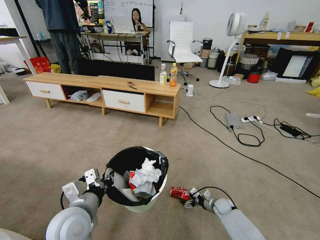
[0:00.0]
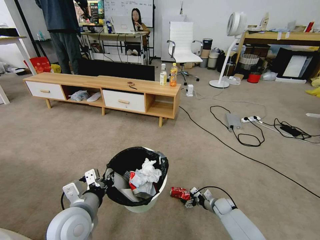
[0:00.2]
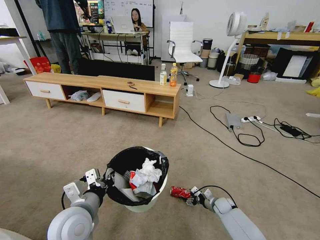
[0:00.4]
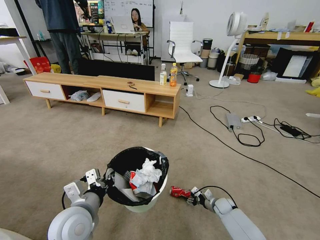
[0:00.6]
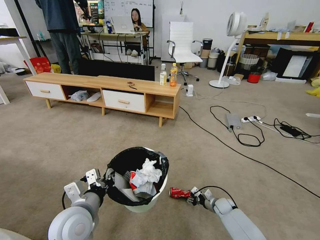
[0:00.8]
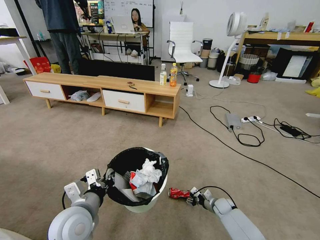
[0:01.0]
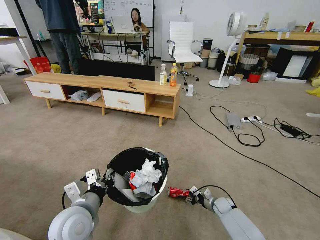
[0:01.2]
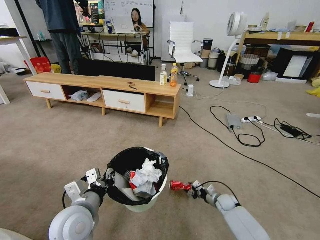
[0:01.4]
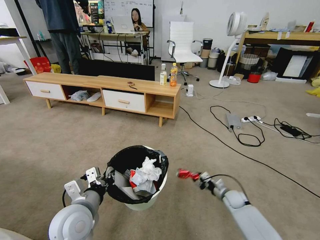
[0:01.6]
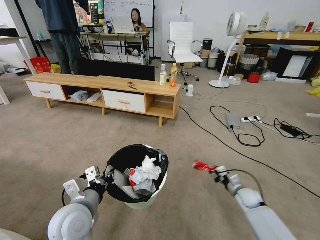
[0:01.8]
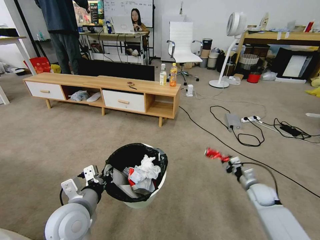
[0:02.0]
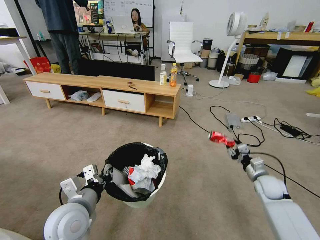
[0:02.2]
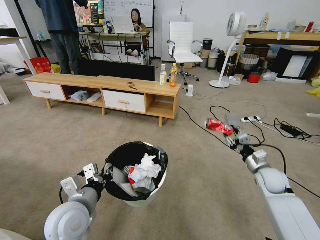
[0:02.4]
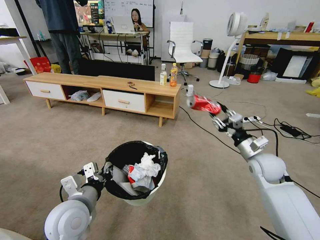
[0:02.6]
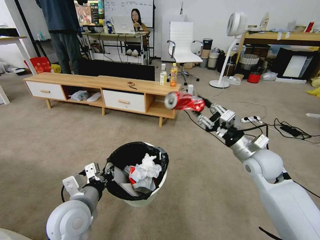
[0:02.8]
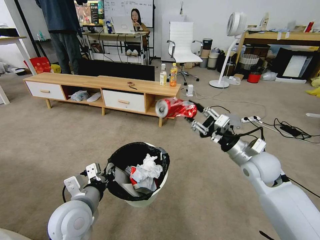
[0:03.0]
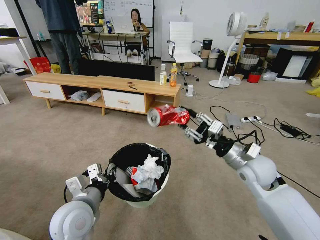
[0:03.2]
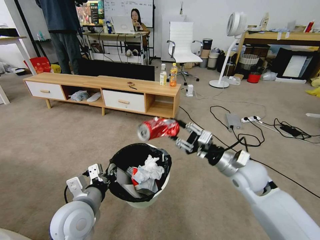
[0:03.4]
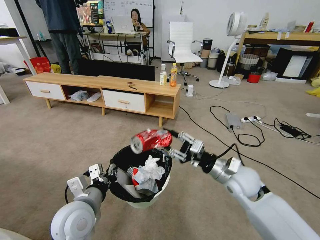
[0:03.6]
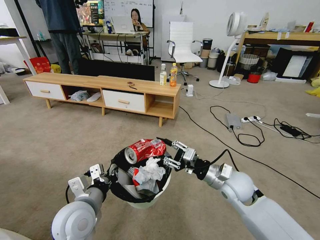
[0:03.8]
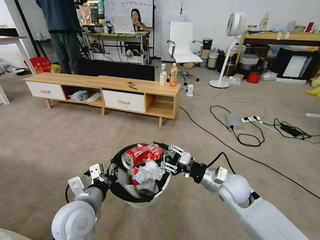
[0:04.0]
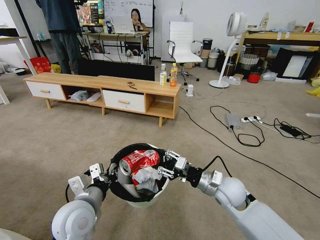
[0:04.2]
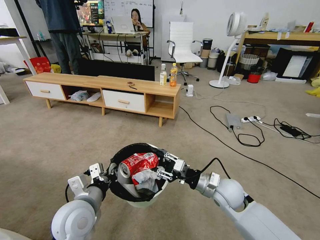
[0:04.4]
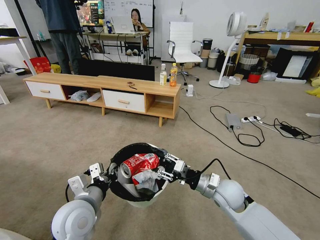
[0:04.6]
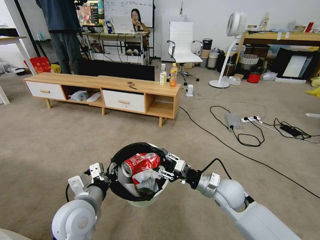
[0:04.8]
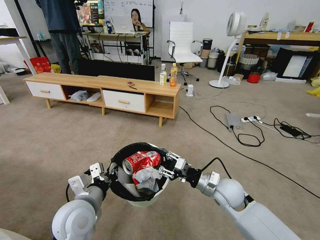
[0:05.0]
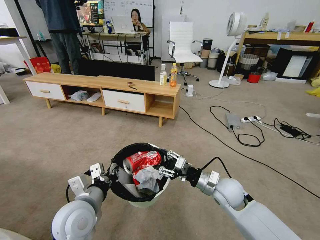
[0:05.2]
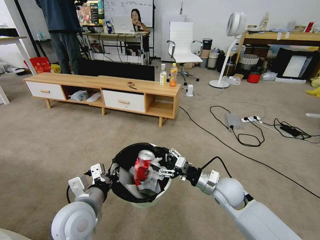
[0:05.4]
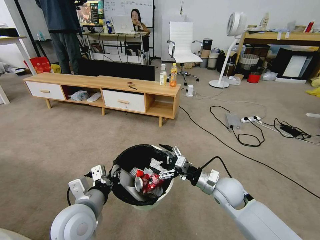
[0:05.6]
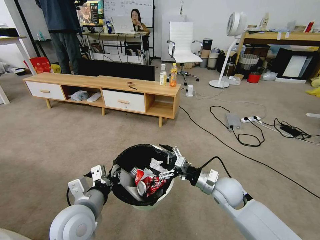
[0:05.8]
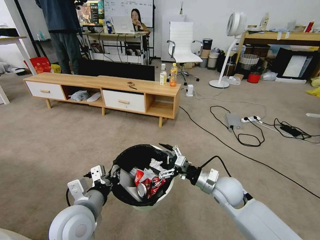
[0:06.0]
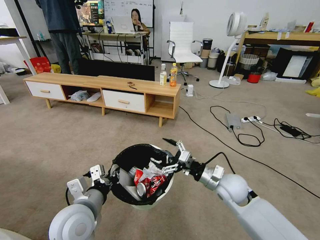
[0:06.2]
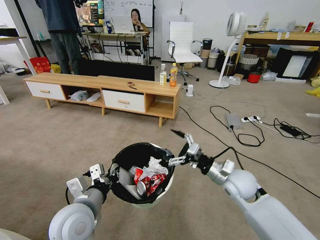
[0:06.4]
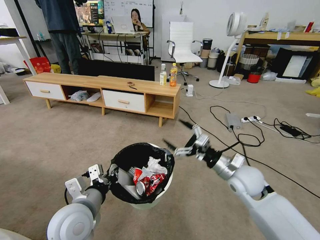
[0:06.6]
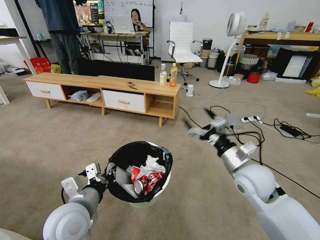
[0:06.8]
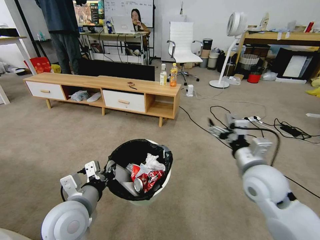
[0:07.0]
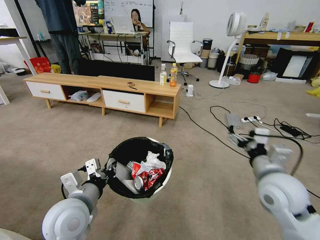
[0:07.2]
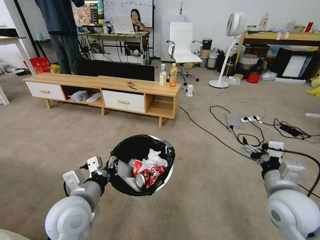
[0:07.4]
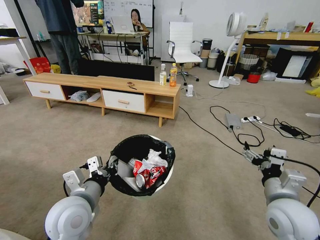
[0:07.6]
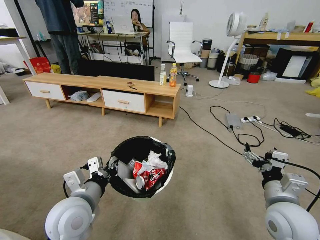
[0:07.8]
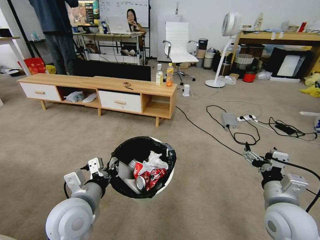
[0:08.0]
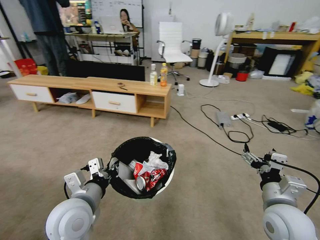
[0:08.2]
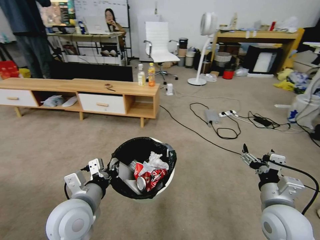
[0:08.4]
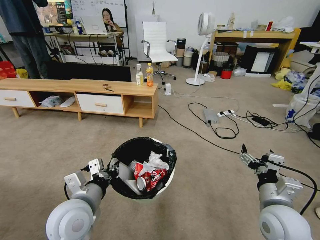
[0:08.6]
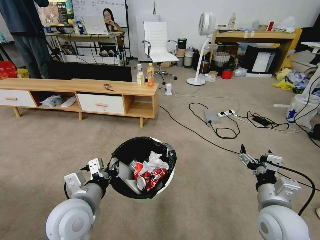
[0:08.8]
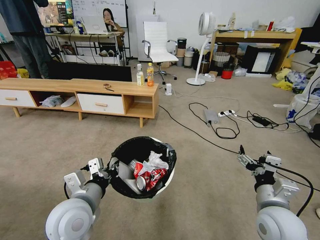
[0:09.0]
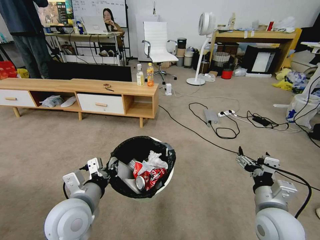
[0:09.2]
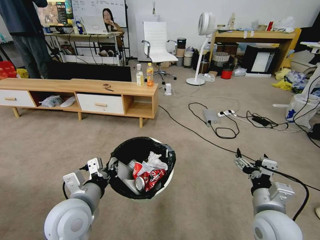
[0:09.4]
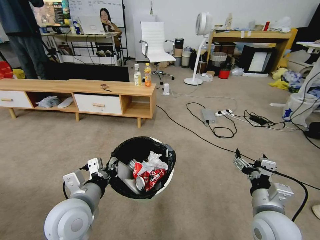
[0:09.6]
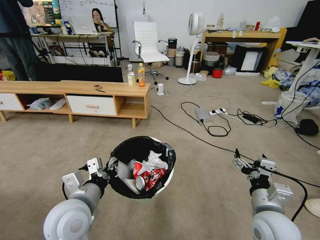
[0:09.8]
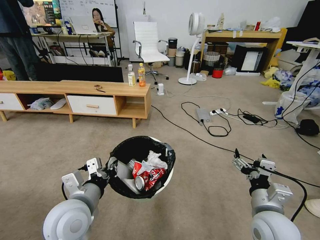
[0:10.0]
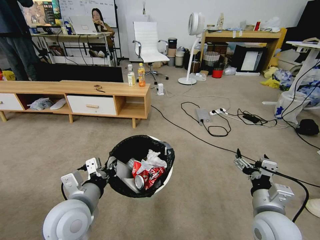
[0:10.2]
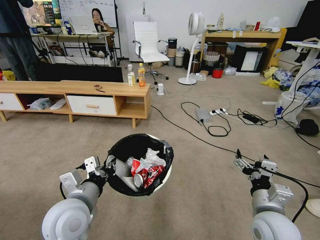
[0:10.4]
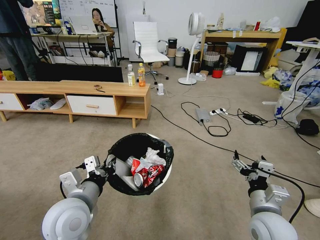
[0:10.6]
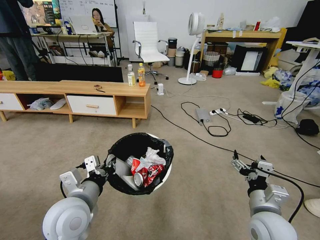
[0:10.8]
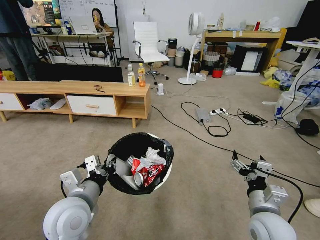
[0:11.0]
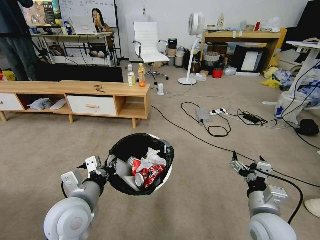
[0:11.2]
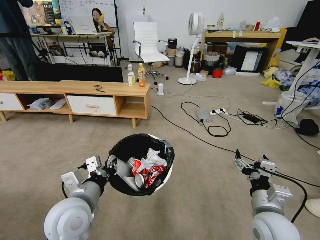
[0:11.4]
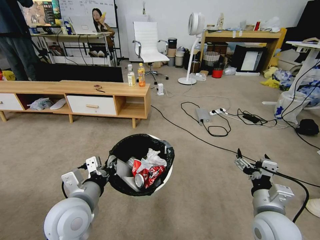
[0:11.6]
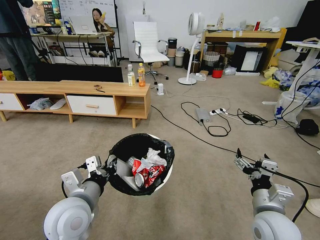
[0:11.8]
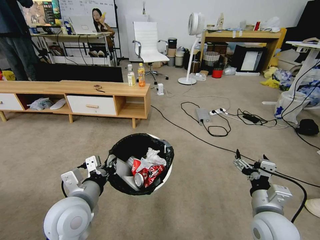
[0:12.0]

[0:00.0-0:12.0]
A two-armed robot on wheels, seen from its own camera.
Task of the whole recording: Pick up the trash bin and place the garbage on the floor into it.
0:00.0 to 0:01.6: The right gripper is displaced upward by about 5 cm, and closes its fingers.
0:01.6 to 0:03.0: The right gripper heads upward, covering roughly 30 cm.
0:03.0 to 0:04.4: The right gripper heads downward and to the left, covering approximately 15 cm.
0:04.4 to 0:06.0: The right gripper opens its fingers.
0:06.0 to 0:07.6: The right gripper shifts about 15 cm backward, to the right and upward.
0:10.4 to 0:12.0: Both grippers stay about where they are.
